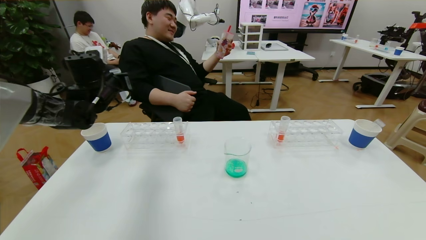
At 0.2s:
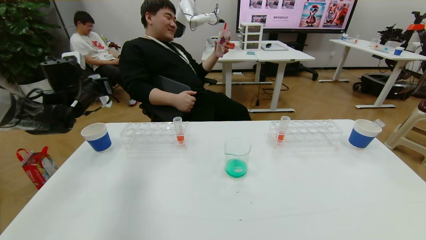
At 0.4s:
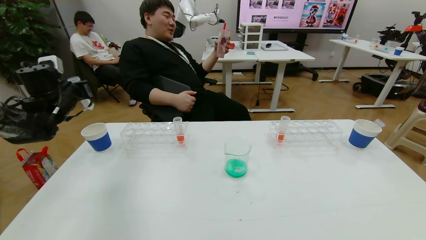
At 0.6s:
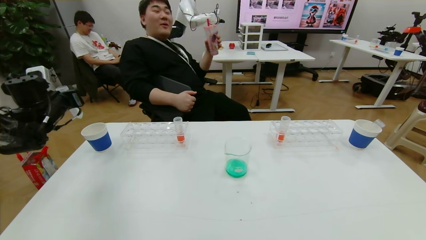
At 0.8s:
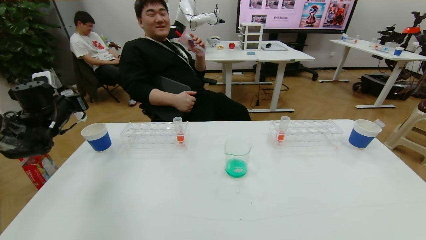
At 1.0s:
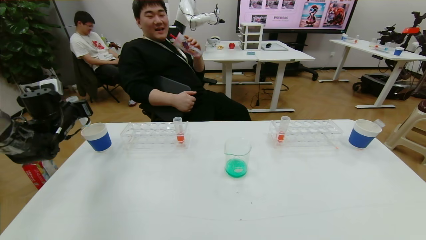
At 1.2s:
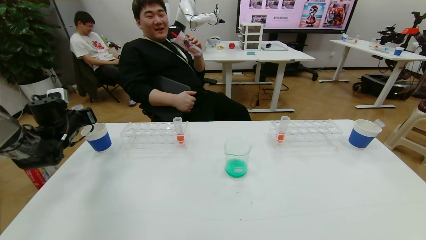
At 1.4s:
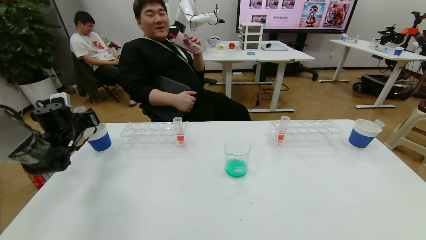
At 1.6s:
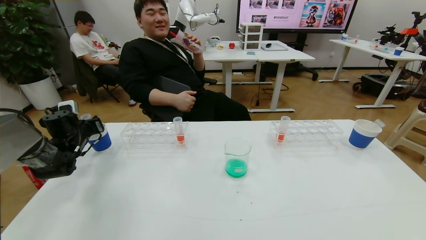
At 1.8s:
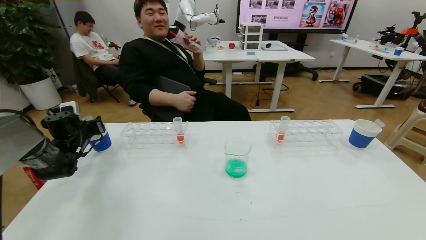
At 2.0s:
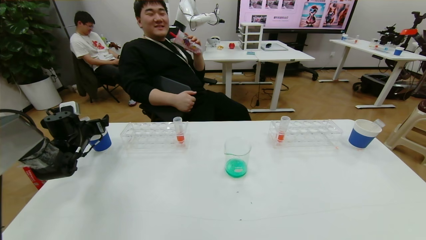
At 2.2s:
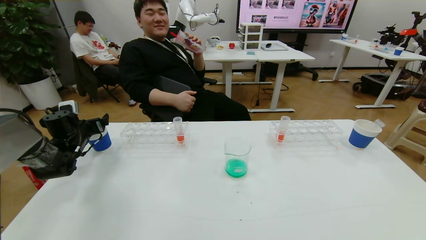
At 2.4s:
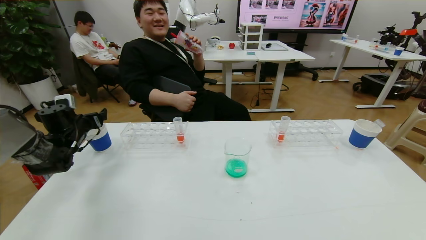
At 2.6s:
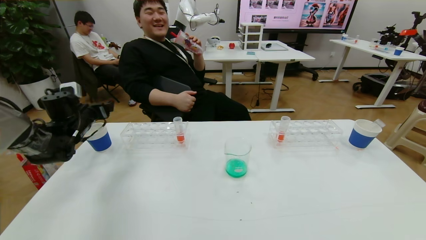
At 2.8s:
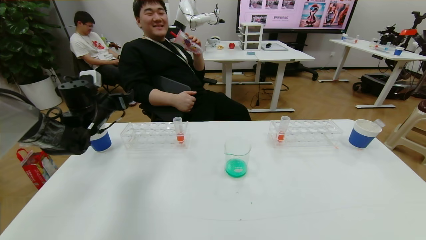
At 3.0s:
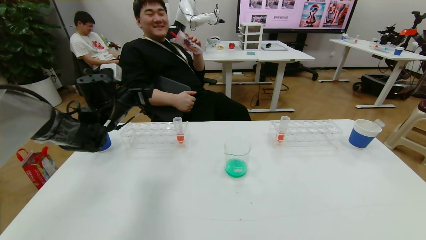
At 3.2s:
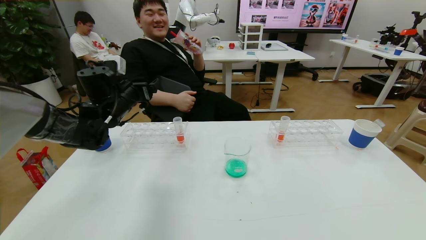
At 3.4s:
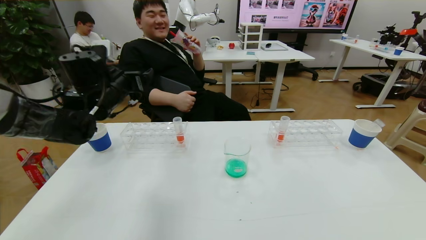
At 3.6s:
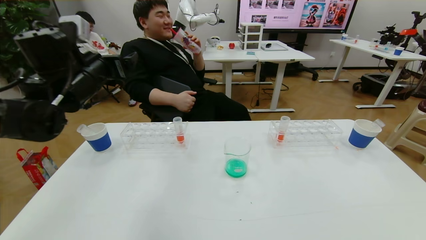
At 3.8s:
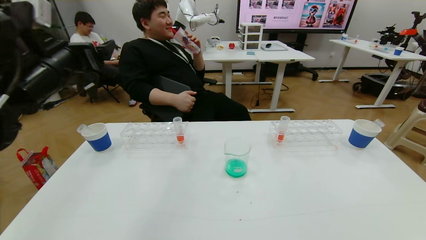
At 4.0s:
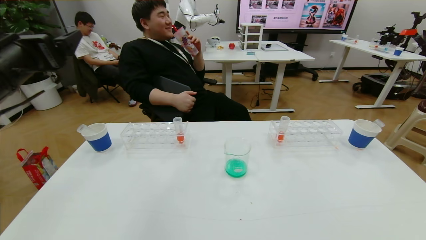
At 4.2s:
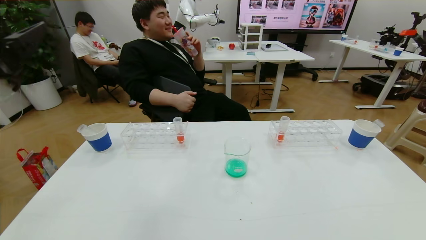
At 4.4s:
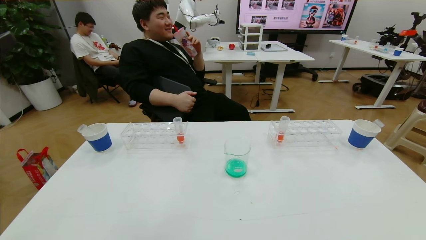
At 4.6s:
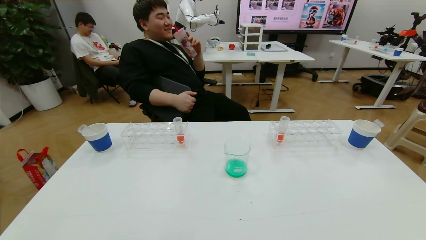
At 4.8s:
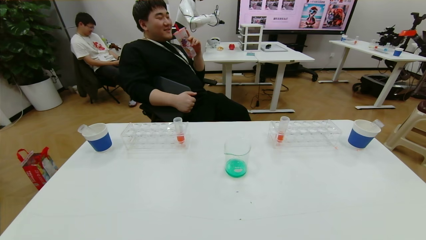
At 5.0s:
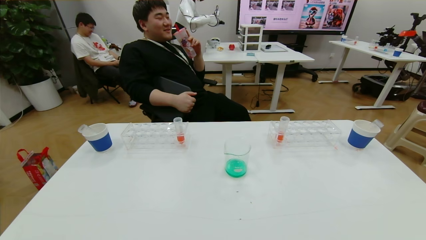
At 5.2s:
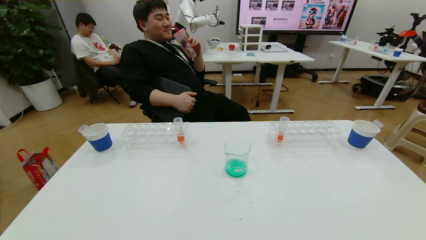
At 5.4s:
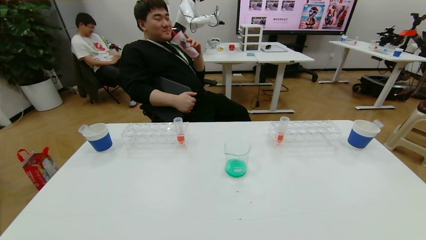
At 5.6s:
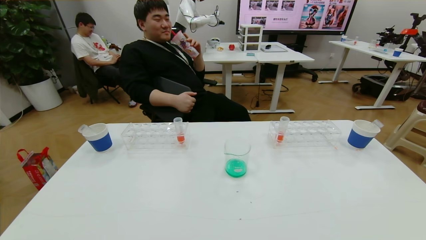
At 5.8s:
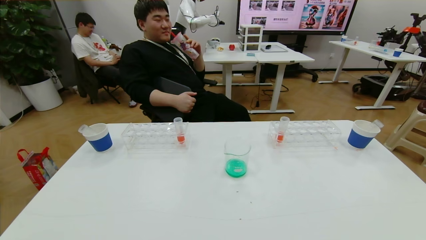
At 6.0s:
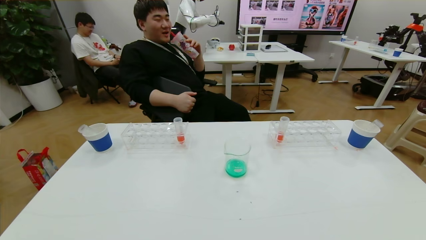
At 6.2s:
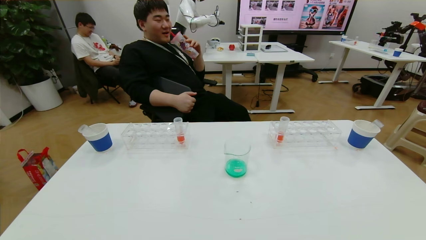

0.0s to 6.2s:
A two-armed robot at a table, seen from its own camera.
Task of the whole recording: pick up the test tube with yellow pigment and the test tube with blue pigment by grippers and pour them into the beaker.
0.0s to 1.6s: The left gripper shifts roughly 20 cm downward and to the left.
1.6s to 3.2s: The left gripper moves to the right and upward, approximately 20 cm, and opens.
3.2s to 4.6s: The left gripper heads backward, covering some 35 cm.
4.6s to 6.2s: The left gripper is displaced downward and backward by approximately 25 cm.
